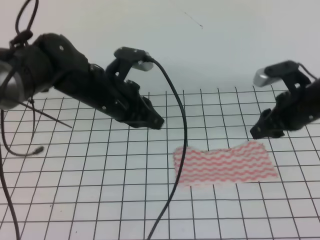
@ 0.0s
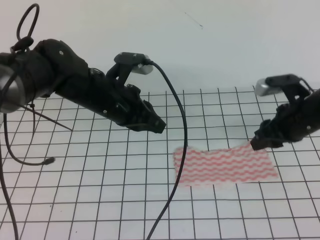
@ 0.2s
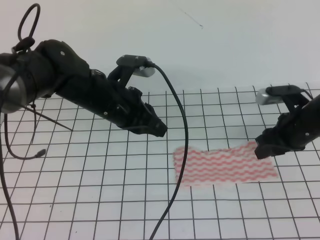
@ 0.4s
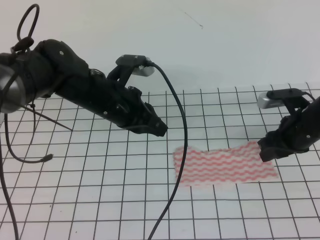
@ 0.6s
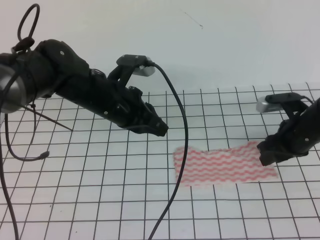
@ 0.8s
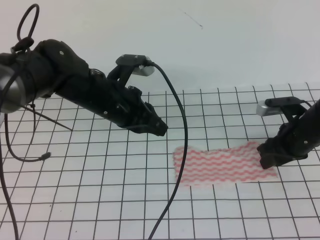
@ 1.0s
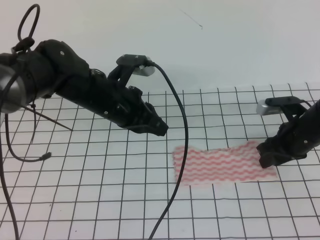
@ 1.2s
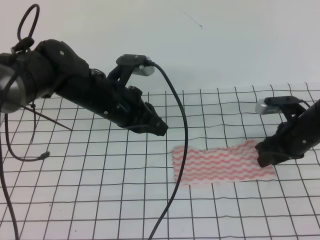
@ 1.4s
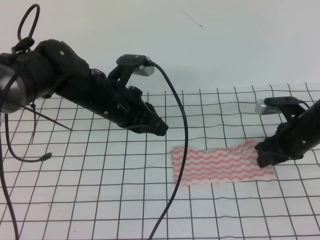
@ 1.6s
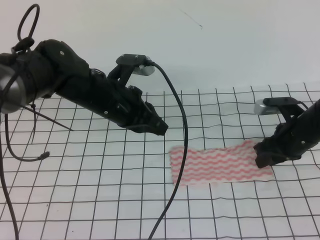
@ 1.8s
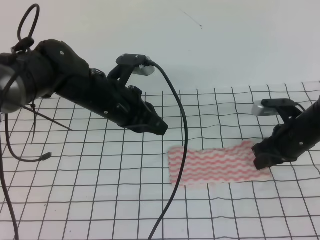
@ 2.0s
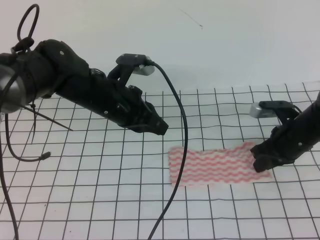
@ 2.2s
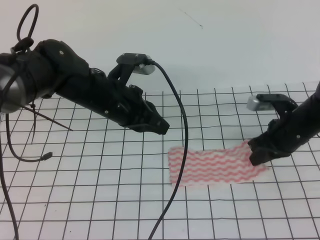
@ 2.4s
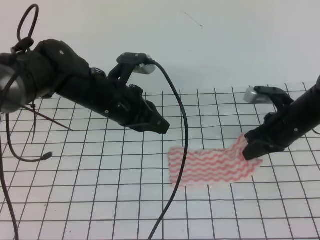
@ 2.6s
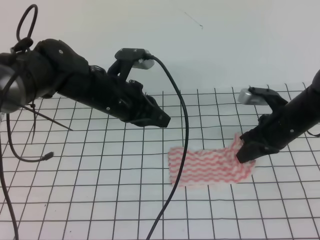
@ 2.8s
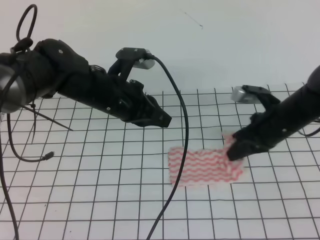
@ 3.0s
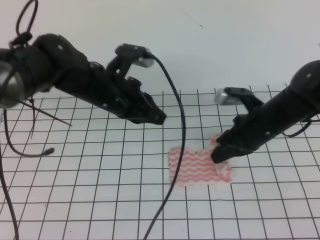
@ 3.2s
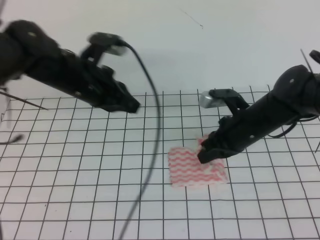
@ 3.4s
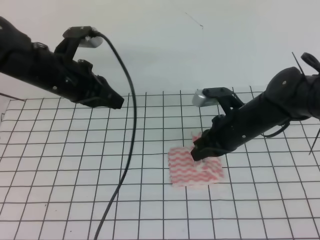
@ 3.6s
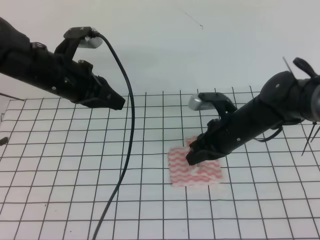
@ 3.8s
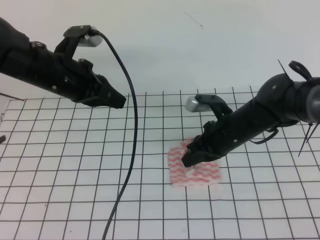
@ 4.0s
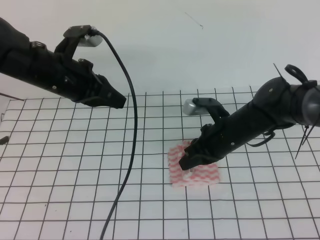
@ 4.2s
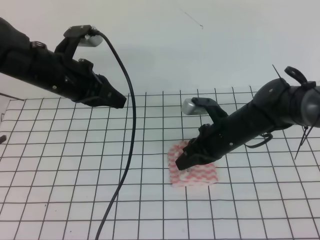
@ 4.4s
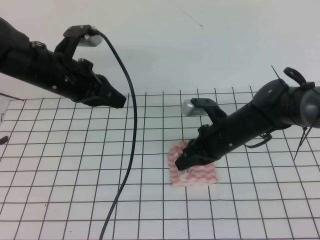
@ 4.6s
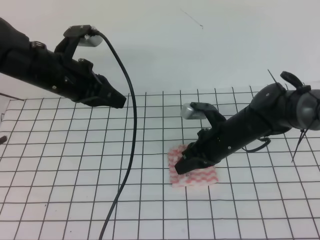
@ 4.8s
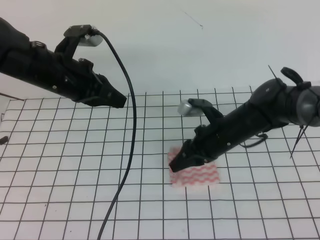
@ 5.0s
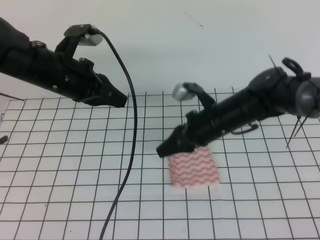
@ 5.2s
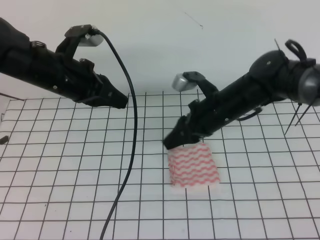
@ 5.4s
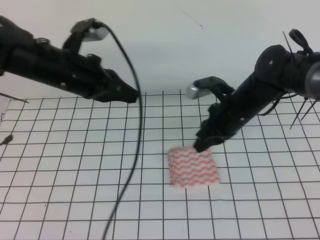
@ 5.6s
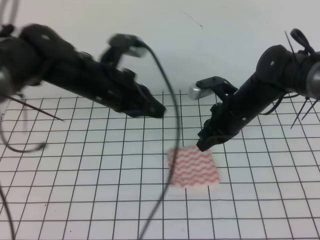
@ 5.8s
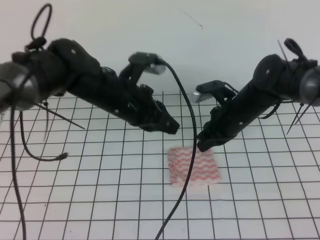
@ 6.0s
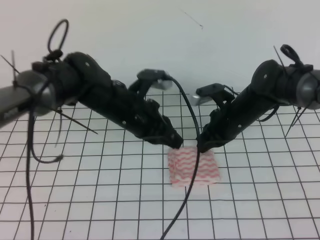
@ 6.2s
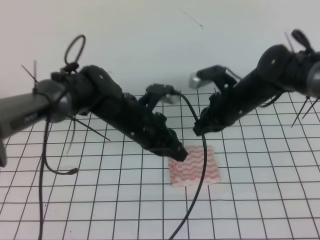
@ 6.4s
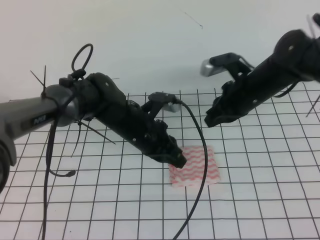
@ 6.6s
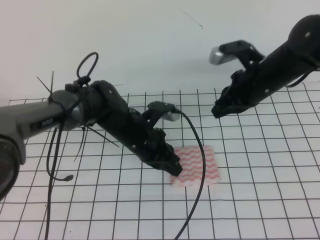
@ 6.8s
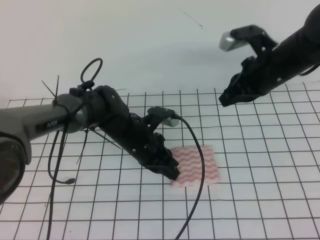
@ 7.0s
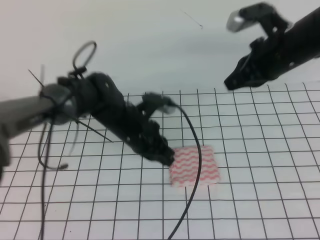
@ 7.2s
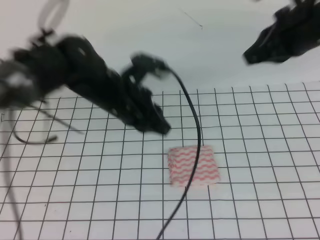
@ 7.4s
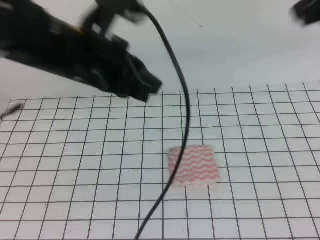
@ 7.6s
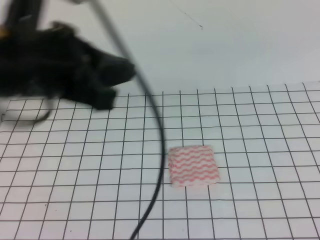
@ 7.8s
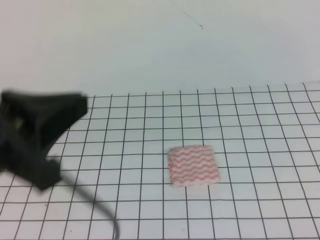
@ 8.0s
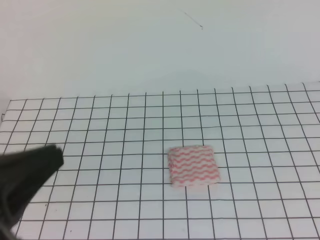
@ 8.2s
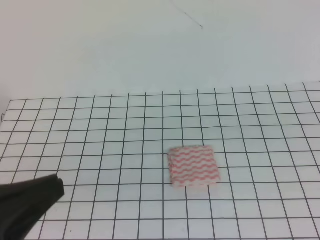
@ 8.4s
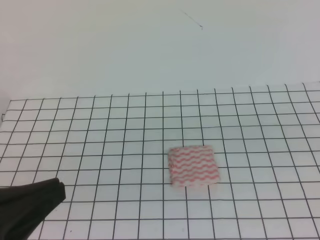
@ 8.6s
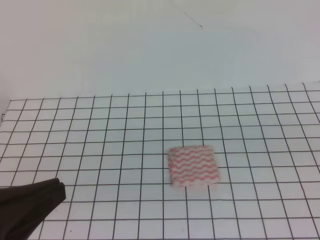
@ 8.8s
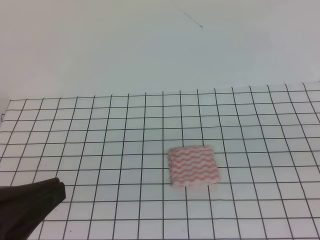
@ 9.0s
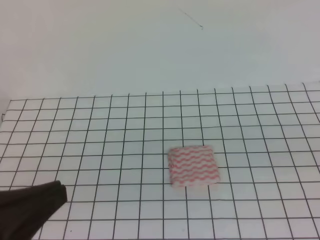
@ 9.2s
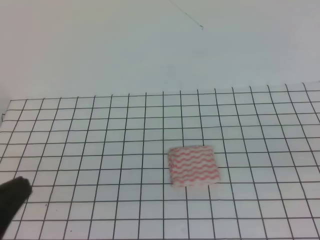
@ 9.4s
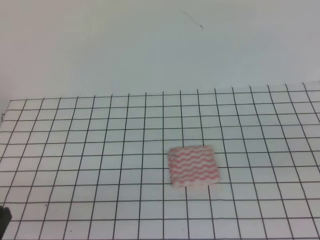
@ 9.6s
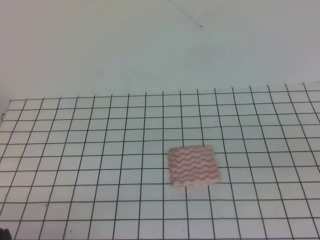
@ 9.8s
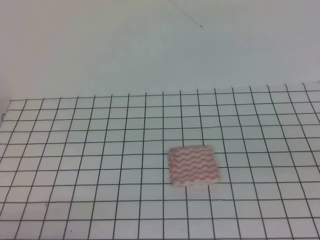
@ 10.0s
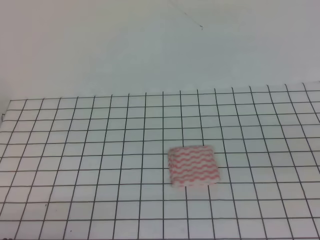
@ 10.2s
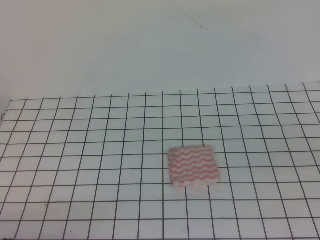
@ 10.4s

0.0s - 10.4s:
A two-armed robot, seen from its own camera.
0.0s - 1.4s: The right gripper moves downward, approximately 10 cm.
1.4s - 3.0s: The right gripper moves some 5 cm, and closes up.
3.0s - 4.4s: The two grippers go about 10 cm to the left.
4.4s - 6.0s: The right gripper opens, then closes again, while the left gripper moves to the right, approximately 10 cm.
6.0s - 7.4s: The right gripper heads upward, covering approximately 20 cm, while the left gripper goes downward and returns, some 10 cm each way.
7.4s - 9.0s: The right gripper shifts some 25 cm backward. Meanwhile the left gripper heads backward and to the left, covering about 30 cm.
9.0s - 10.4s: The left gripper travels downward by about 20 cm.

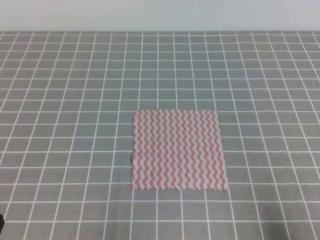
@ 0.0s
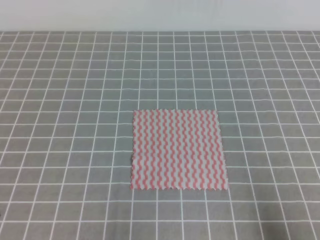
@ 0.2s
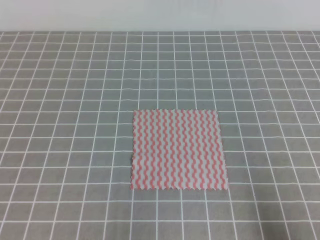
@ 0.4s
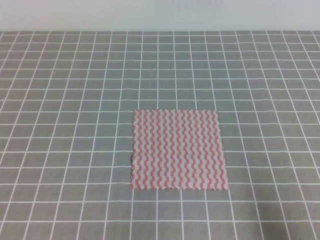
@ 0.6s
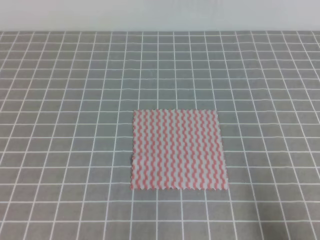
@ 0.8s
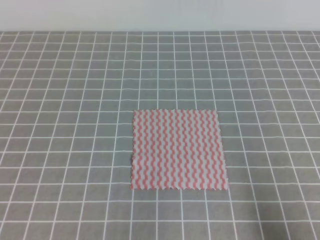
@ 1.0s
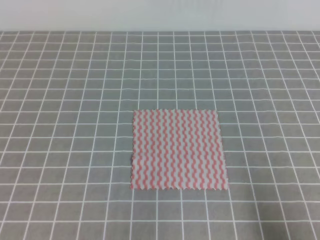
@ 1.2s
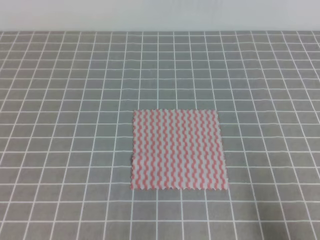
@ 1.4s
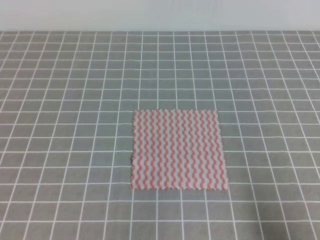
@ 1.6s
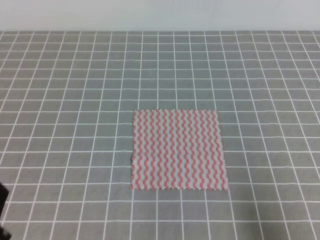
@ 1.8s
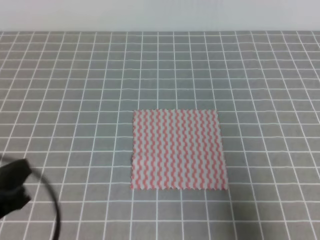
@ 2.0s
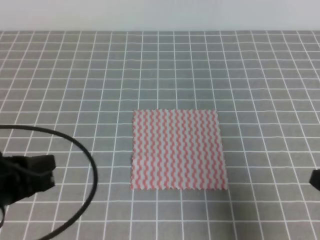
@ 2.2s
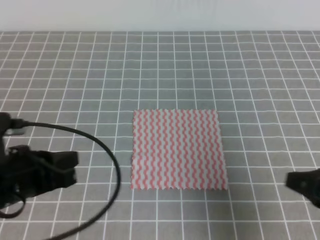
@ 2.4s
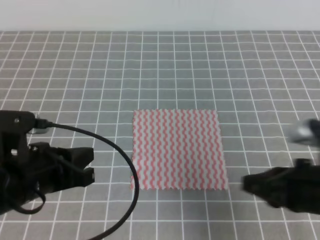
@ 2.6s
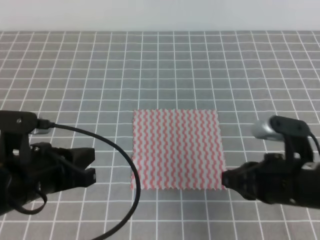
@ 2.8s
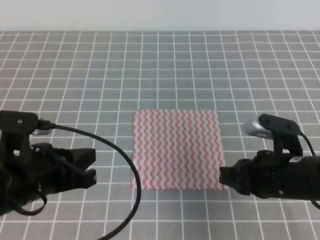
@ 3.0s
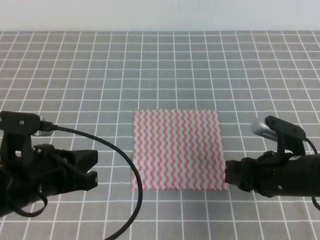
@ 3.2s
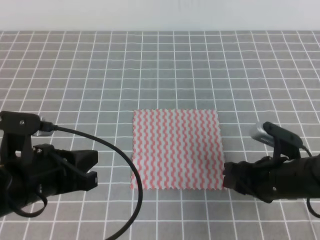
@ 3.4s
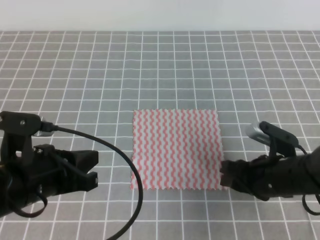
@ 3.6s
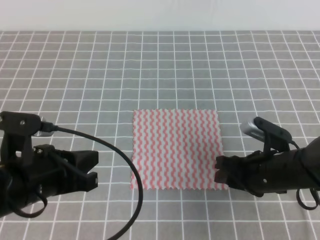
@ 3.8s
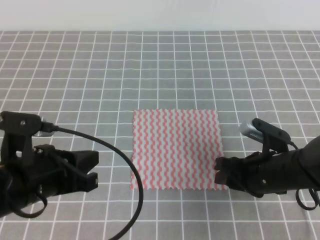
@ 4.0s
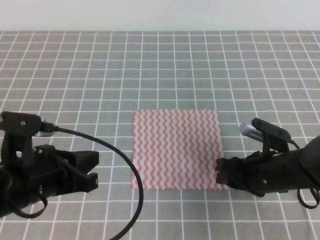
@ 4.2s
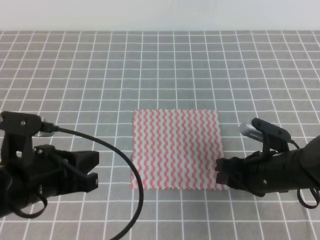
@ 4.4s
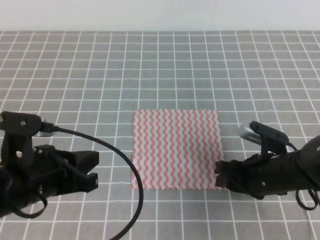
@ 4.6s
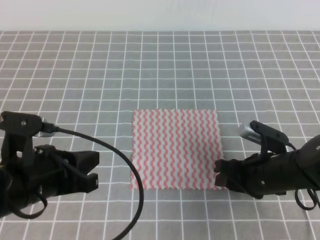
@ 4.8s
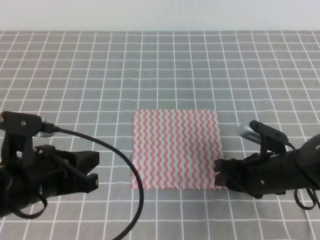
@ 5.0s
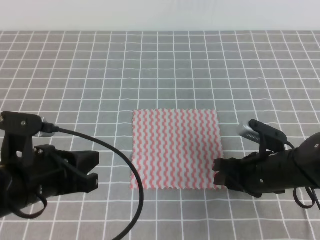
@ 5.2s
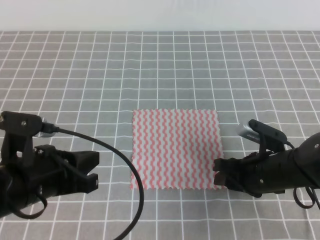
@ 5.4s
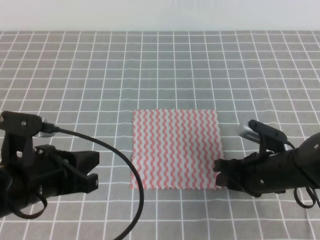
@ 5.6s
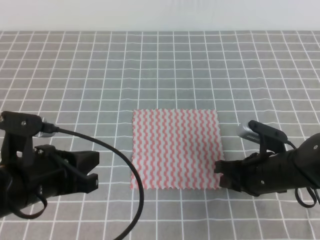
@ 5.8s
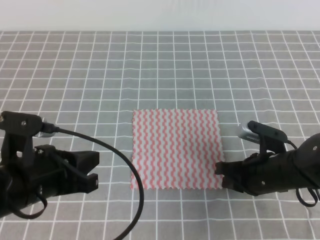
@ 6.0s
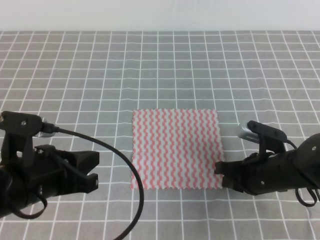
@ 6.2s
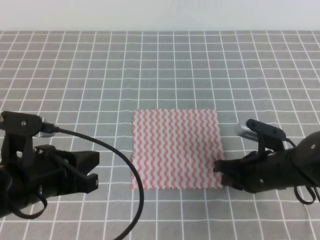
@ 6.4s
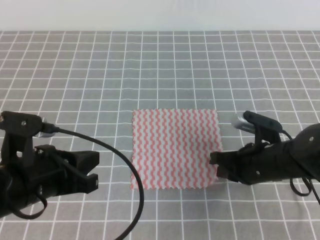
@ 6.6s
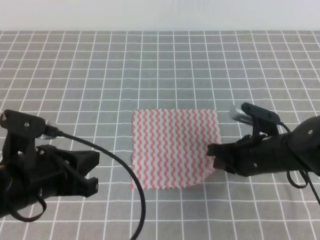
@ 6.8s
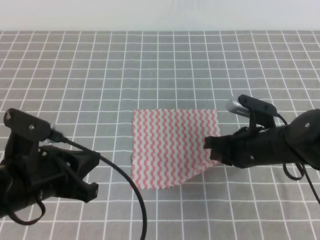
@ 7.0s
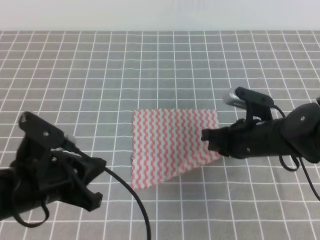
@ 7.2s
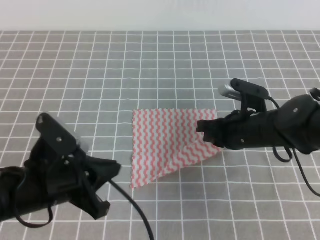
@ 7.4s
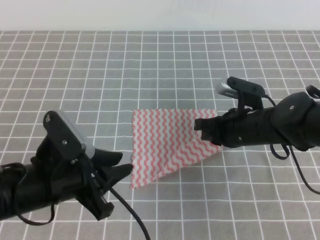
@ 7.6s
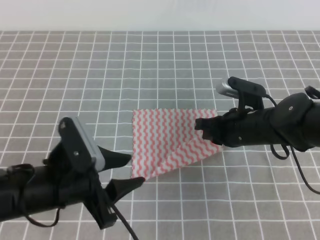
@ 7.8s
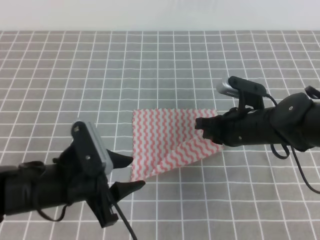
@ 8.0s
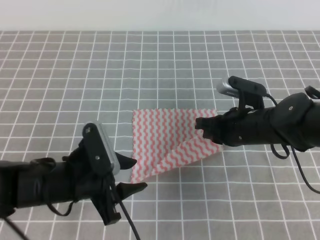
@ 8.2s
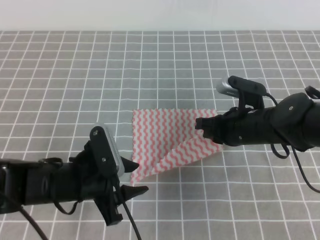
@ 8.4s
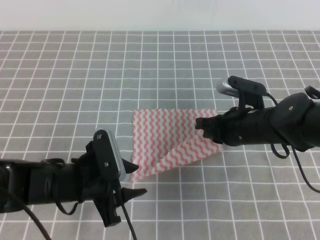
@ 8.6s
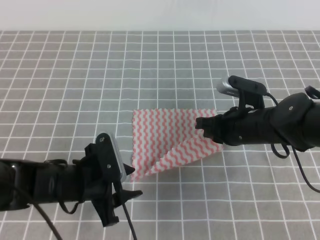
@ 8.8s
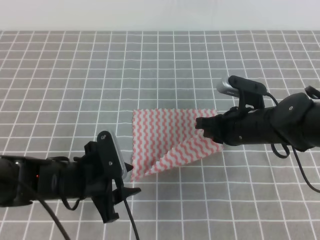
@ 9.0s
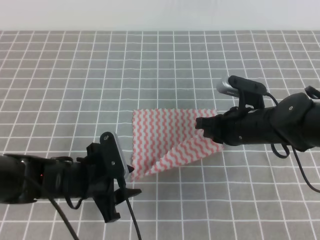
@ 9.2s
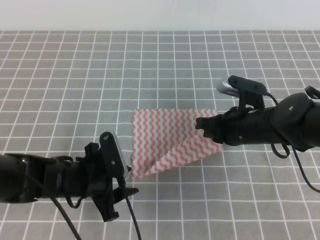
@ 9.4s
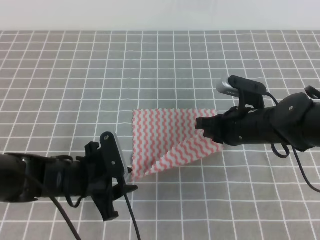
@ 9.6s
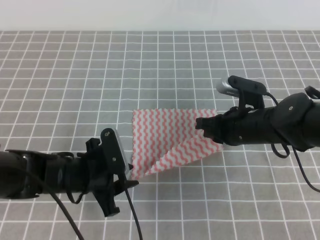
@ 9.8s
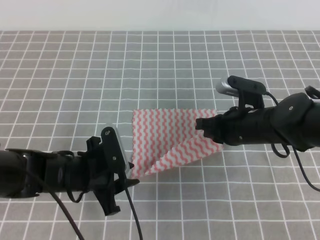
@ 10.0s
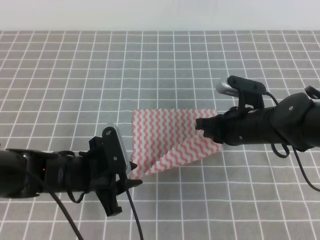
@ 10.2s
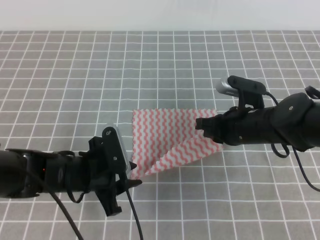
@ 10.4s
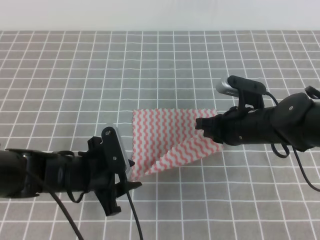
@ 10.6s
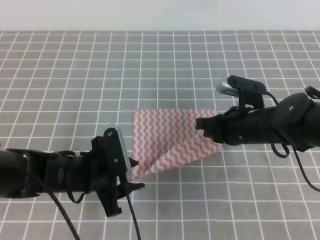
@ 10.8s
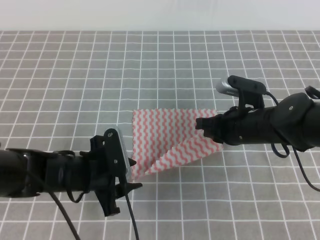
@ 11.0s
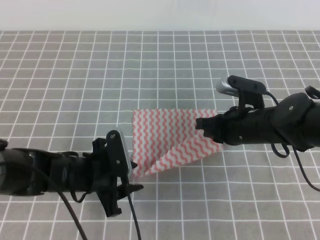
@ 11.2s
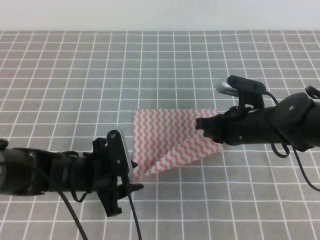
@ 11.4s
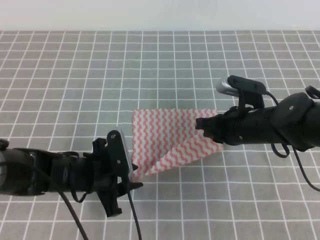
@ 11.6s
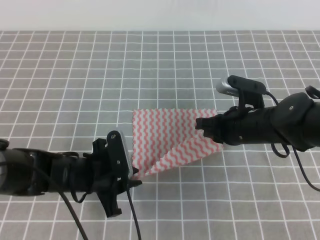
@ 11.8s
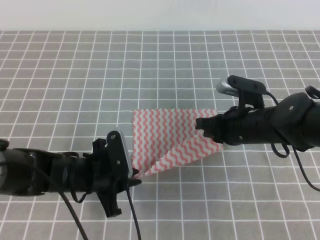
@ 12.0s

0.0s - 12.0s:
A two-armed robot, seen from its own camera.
1.6s - 3.0s: The left gripper heads forward and to the right, covering approximately 15 cm. The right gripper moves forward and to the left, some 20 cm.
3.0s - 4.4s: The right gripper heads downward, covering some 5 cm, and opens its fingers.
4.4s - 6.0s: The right gripper closes its fingers.
6.0s - 7.6s: The left gripper opens. Meanwhile the right gripper goes some 5 cm forward.
7.6s - 9.0s: The left gripper shifts about 10 cm downward and forward, and opens.
9.0s - 10.4s: The grippers move only a little.
10.4s - 12.0s: The left gripper closes up.
